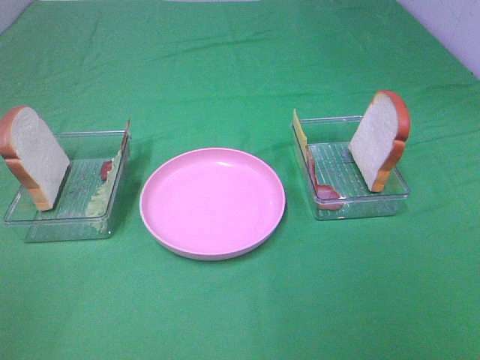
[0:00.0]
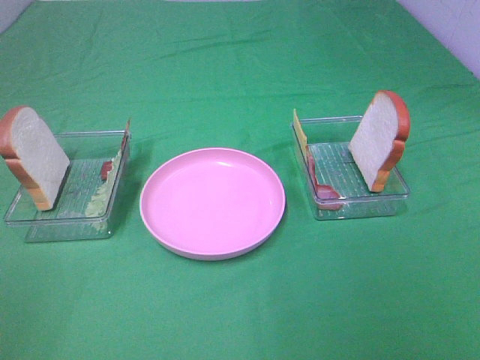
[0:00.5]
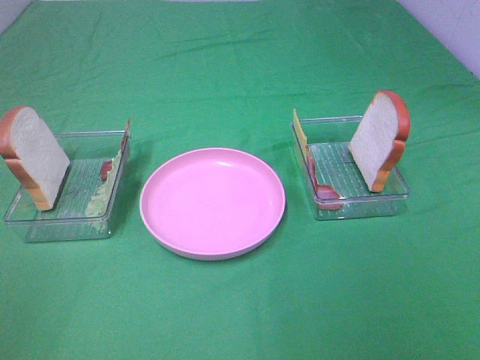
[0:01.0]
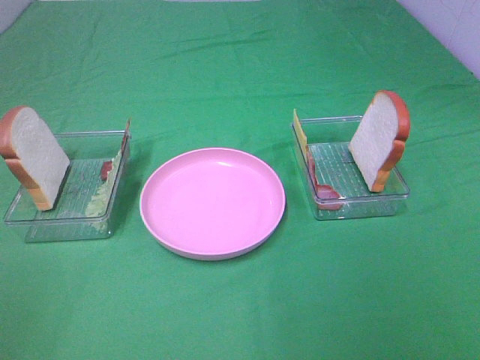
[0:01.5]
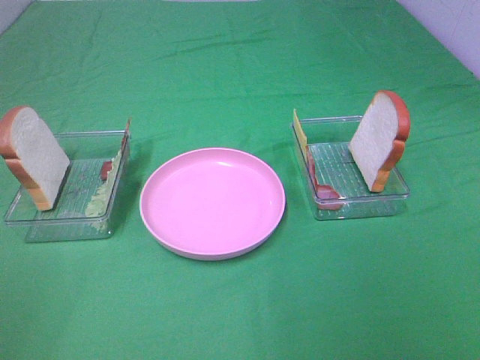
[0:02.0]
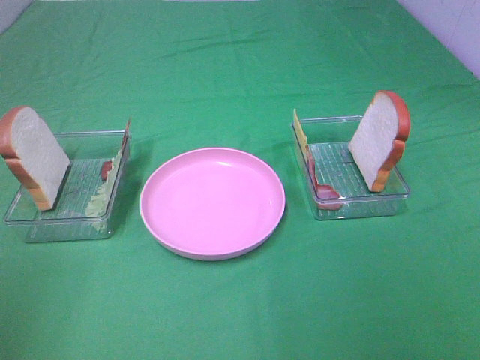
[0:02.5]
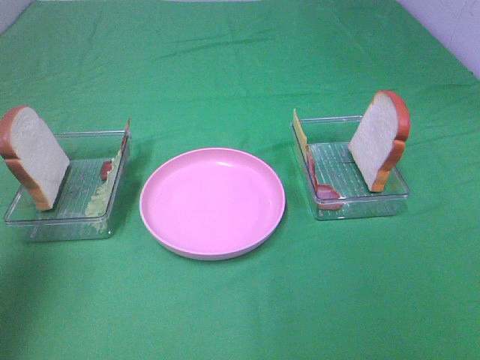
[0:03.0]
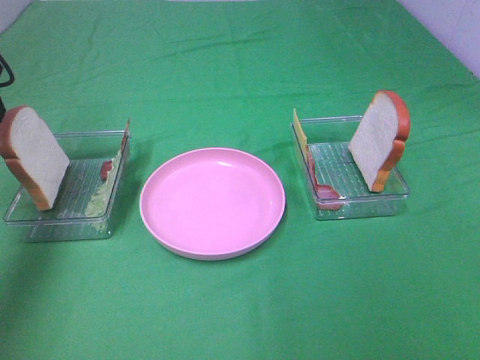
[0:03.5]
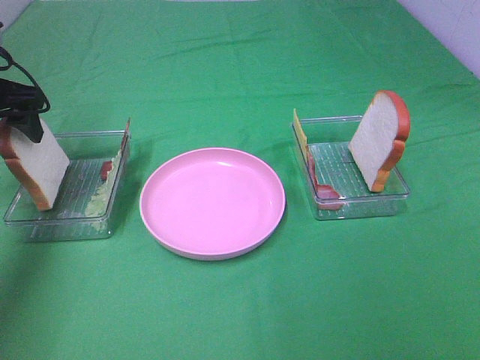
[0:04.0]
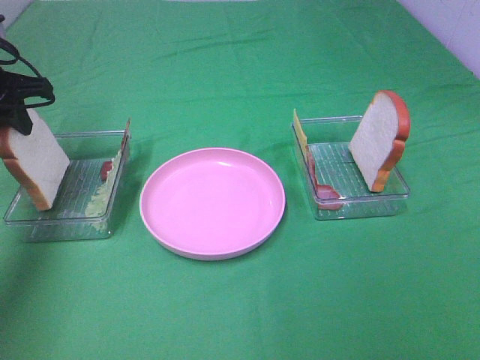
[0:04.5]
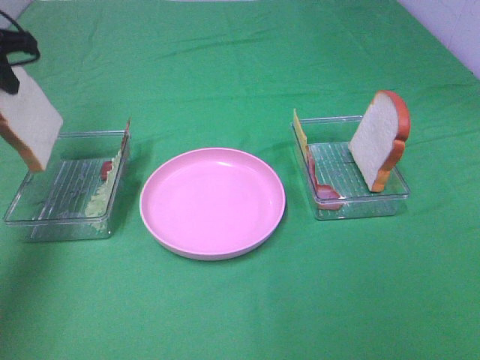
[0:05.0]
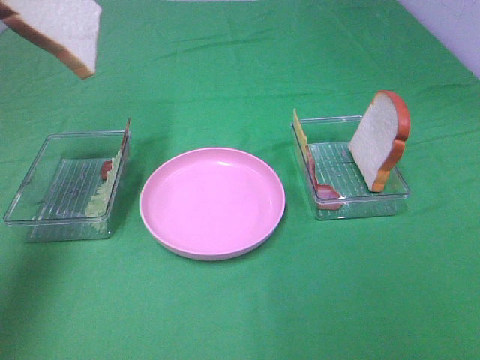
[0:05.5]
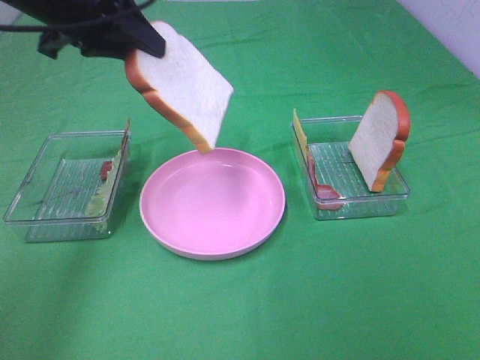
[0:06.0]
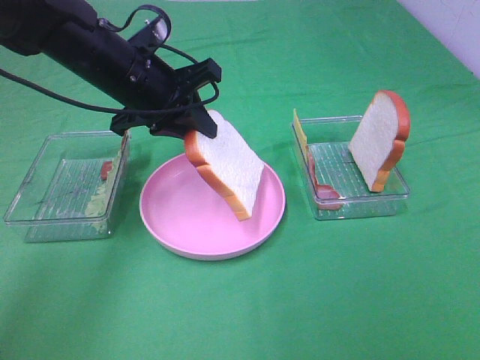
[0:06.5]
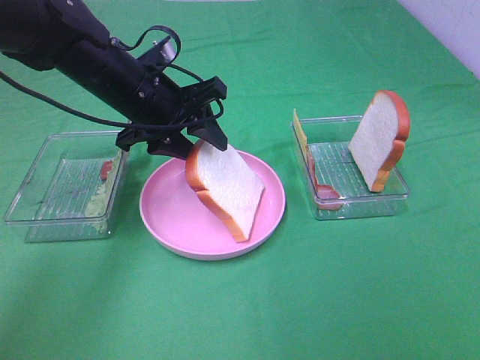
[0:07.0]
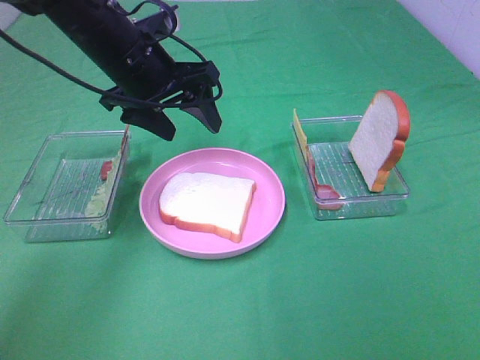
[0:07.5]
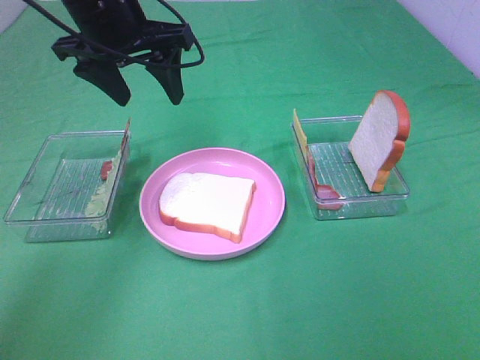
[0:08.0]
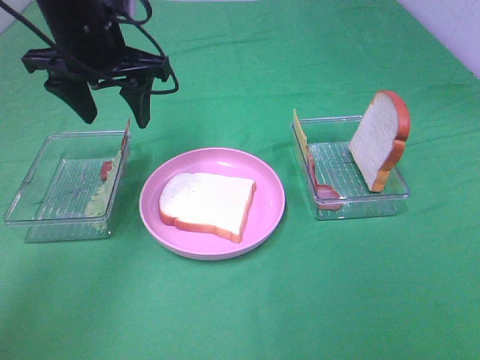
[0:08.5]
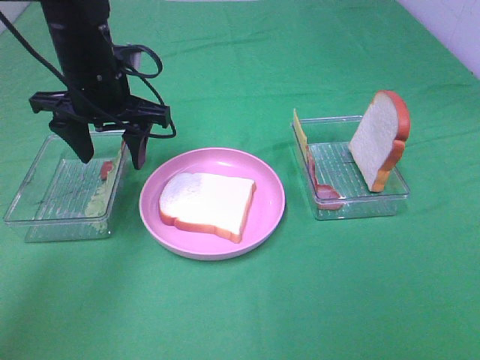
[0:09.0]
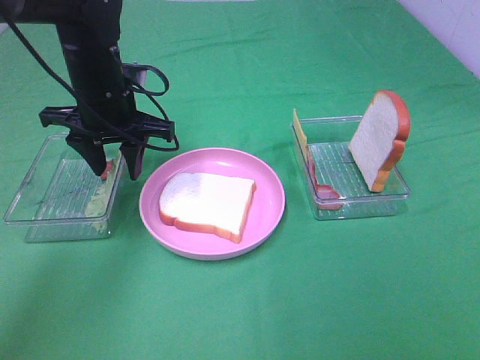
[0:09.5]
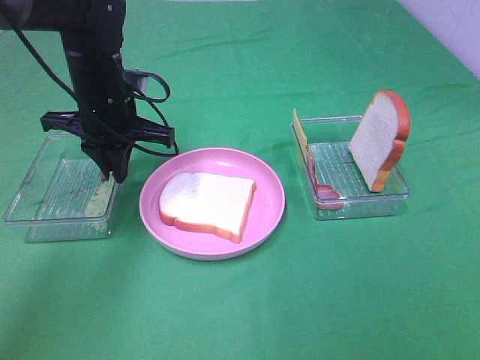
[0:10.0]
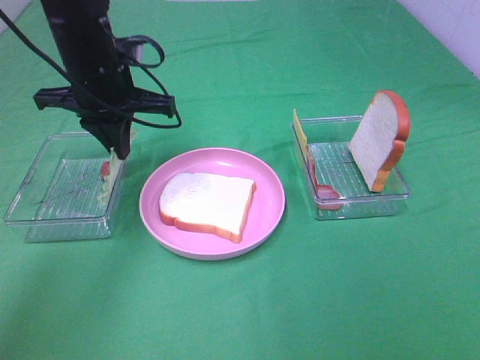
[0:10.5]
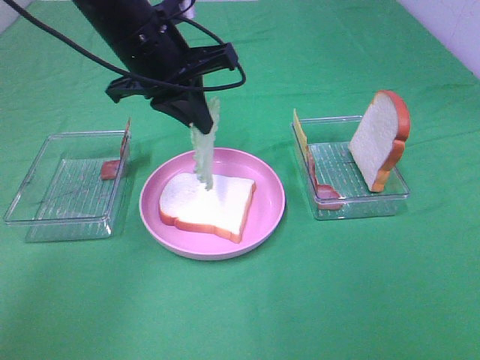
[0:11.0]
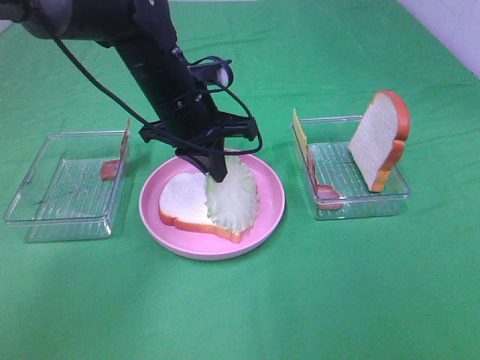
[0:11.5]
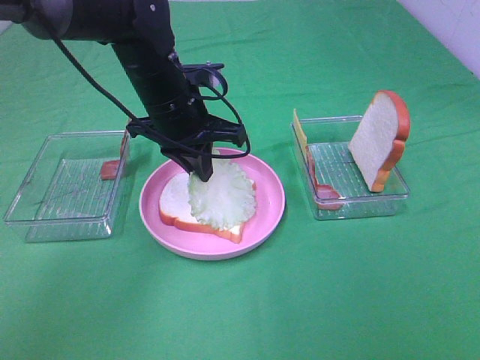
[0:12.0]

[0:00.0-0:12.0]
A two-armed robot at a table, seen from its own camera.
Task of the whole recording: Make sandwiches.
Step, 0.0 to 4.5 s: Left hand:grab the bread slice.
Step, 5.0 to 7.5 s: Left hand:place the bread slice on the plate.
Step, 8.0 to 10.0 s: Left hand:grab the lettuce slice.
0.0 to 2.0 s: Both grippers stay put.
2.0 to 4.0 s: The left gripper goes approximately 40 cm forward.
4.0 to 6.0 s: The left gripper moves to the right and upward, about 15 cm, and closes its fingers.
6.0 to 8.0 s: The left gripper goes downward and returns, about 10 cm each way, and opens.
8.0 to 10.0 s: The left gripper travels downward by about 10 cm, and closes its fingers.
10.0 to 12.0 s: The left gripper heads to the right, covering approximately 10 cm.

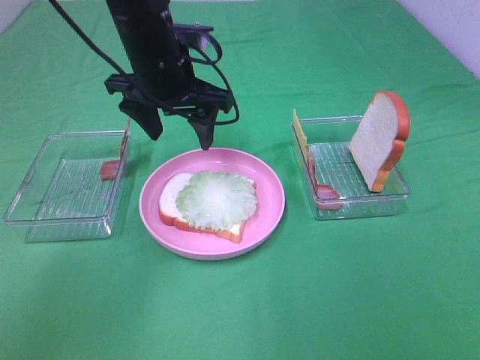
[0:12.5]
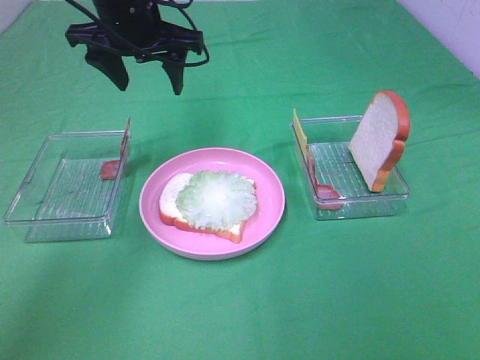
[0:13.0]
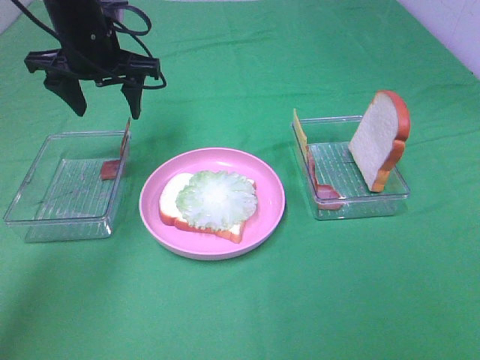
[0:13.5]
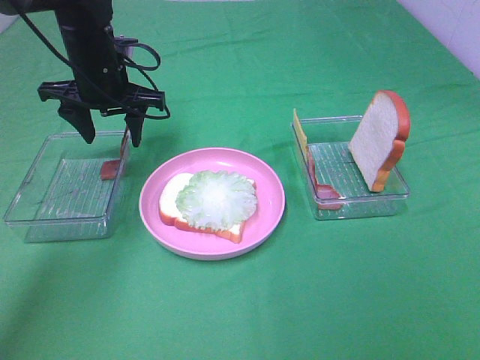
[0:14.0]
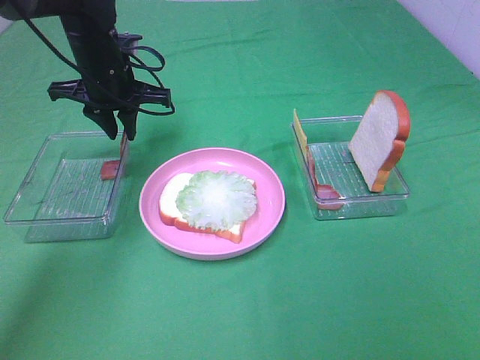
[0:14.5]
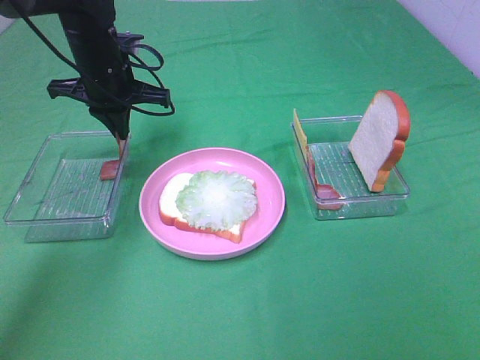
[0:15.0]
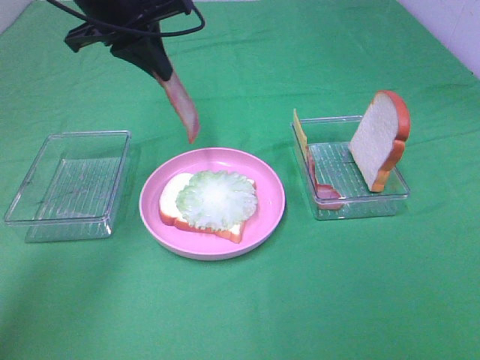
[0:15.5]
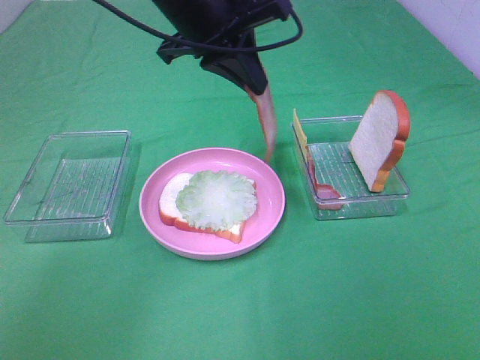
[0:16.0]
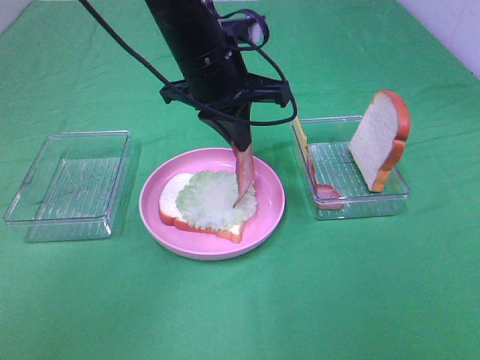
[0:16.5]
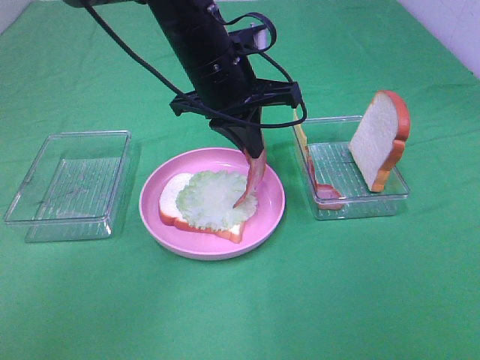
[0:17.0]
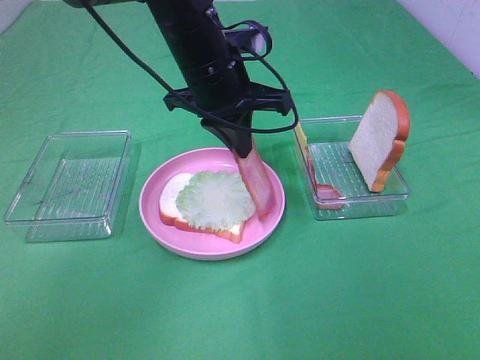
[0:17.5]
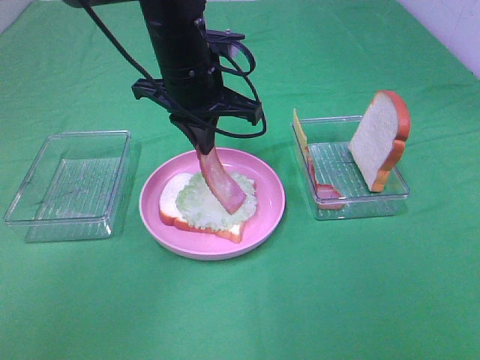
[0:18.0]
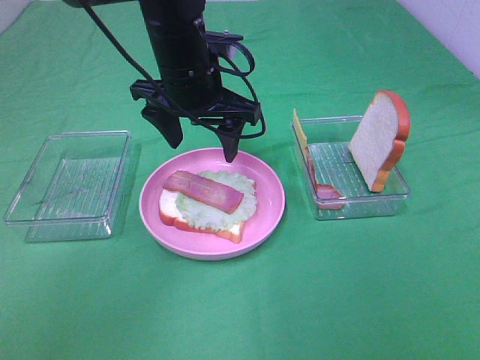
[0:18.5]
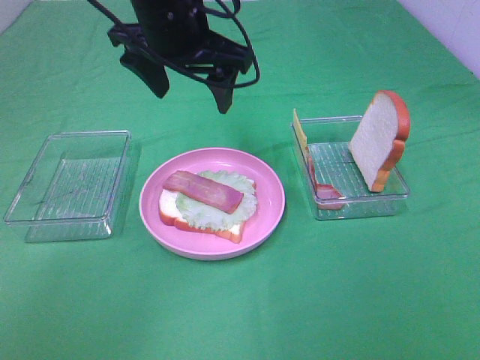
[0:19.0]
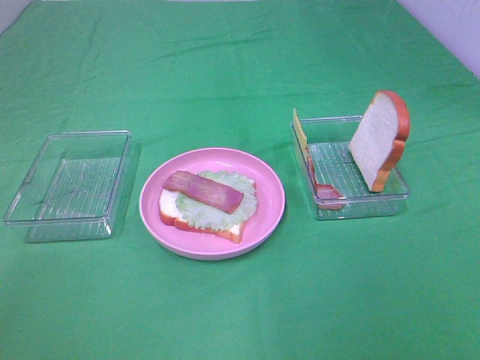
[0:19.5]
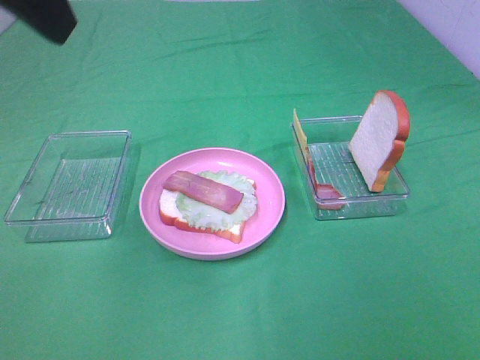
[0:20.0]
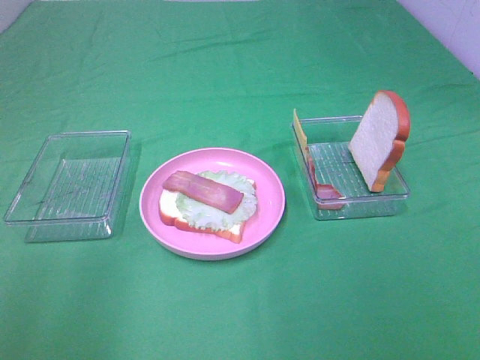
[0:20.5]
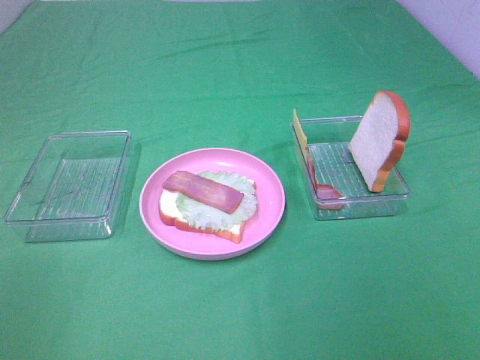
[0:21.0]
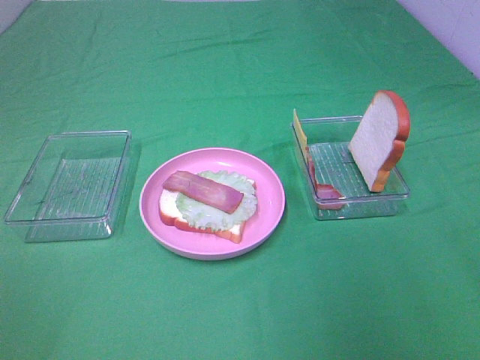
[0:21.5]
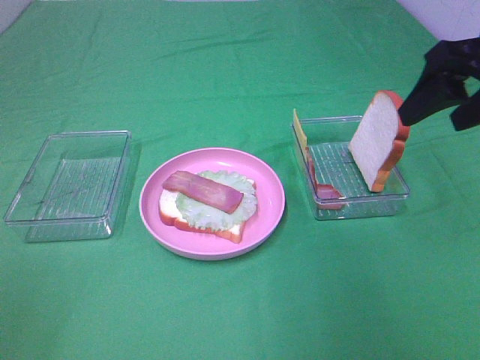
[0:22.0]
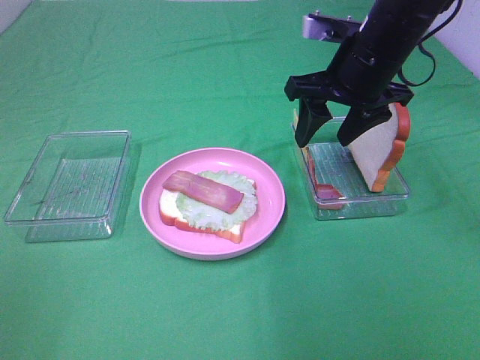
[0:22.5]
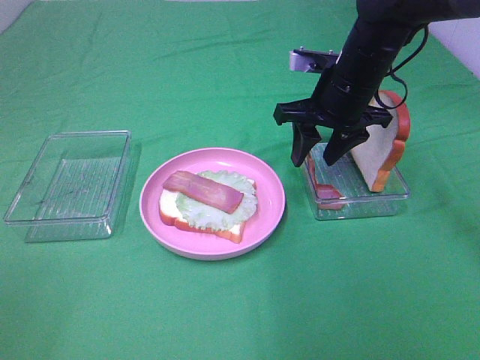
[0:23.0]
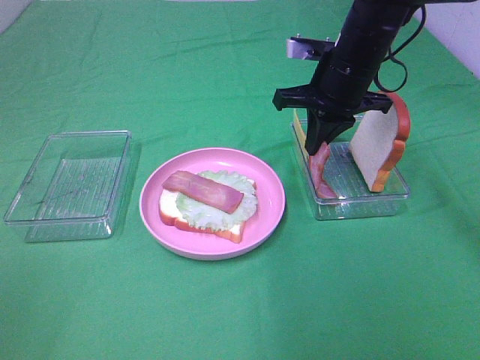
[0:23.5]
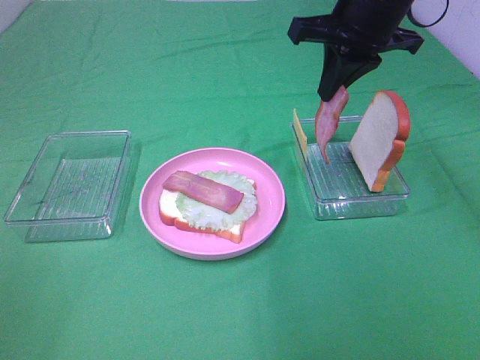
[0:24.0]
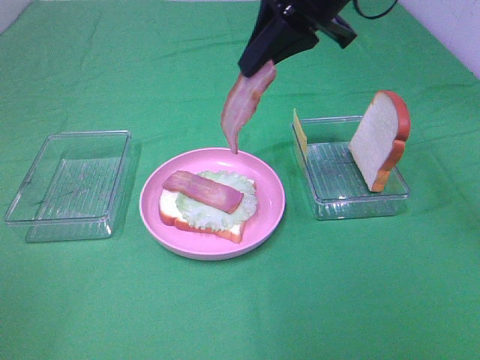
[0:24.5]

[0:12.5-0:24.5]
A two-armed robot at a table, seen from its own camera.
Task of the whole recording: Make sandwiches.
Step, 12.5 to 15.0 s: Left hand:grab the bacon.
Step, 15.5 to 18.0 s: Left hand:place bacon on lettuce slice.
Step, 18.5 to 23.5 s: Right hand:grab the bacon.
12.5 to 14.5 s: The left gripper heads to the left and forward, covering some 10 cm, and closes its fingers.
14.5 to 16.5 s: The left gripper travels to the right and backward by approximately 15 cm.
16.5 to 18.5 s: The left gripper opens.
18.5 to 20.5 s: The left gripper heads backward and to the left, covering some 35 cm.
20.5 to 22.5 s: The right gripper is displaced forward by approximately 40 cm, while the left gripper heads backward and to the left, covering approximately 15 cm.
22.5 to 24.5 s: The right gripper moves upward and to the left, approximately 10 cm, and closes up.

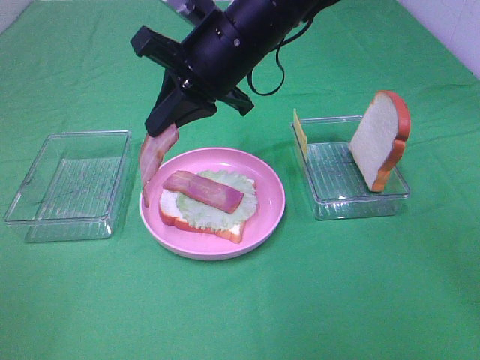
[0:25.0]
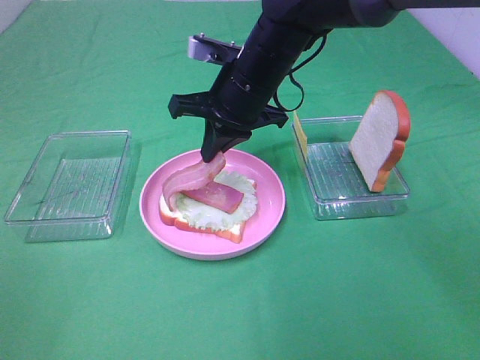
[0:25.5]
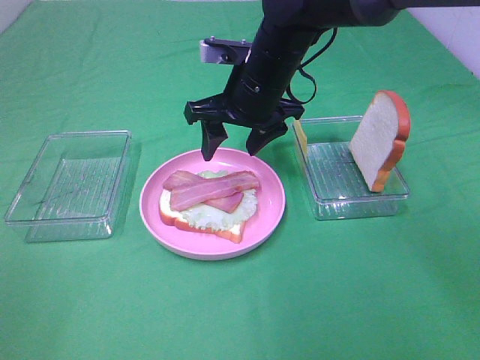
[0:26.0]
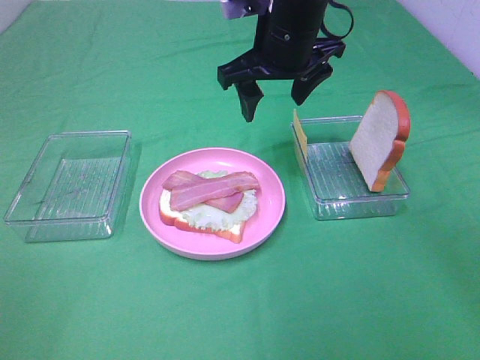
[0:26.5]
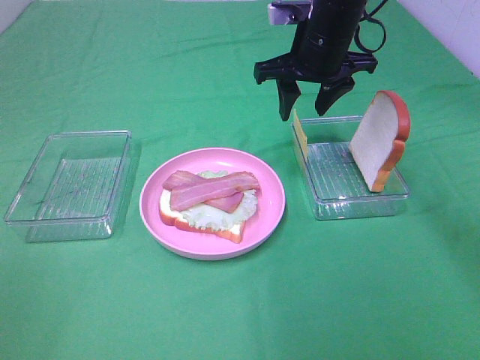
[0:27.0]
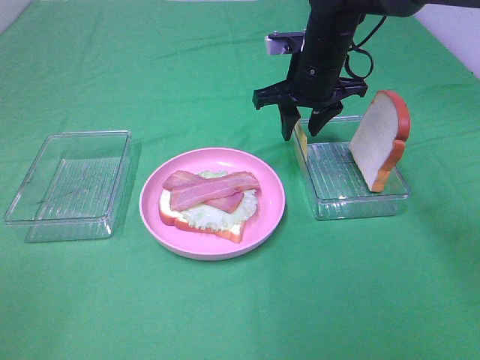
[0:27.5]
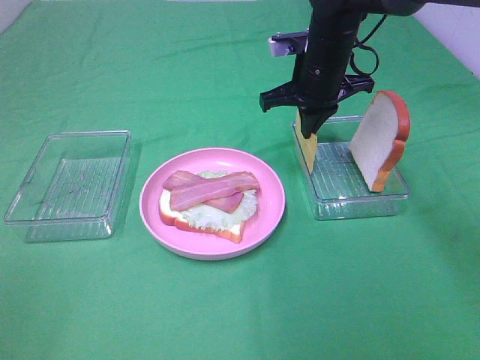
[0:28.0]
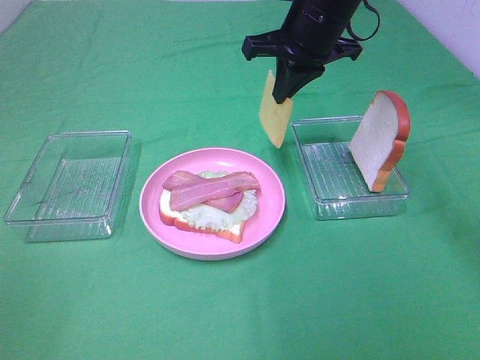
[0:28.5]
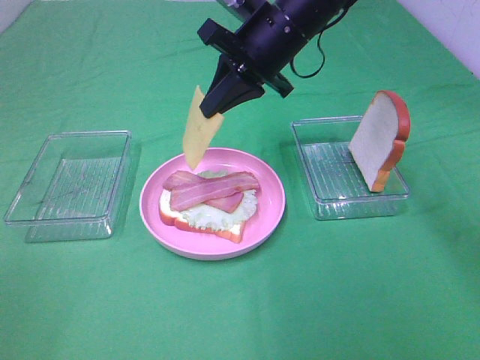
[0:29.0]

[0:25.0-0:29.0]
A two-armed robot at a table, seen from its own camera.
Task of the whole recording: Make sandwiches.
Step, 26.0 to 28.0 s: Right hand:grab the cheese slice.
25.0 to 27.0 s: The right gripper is displaced to the right and forward by approximately 15 cm, and opens.
27.0 to 29.0 s: The right gripper heads to the left, covering approximately 5 cm, and closes up.
